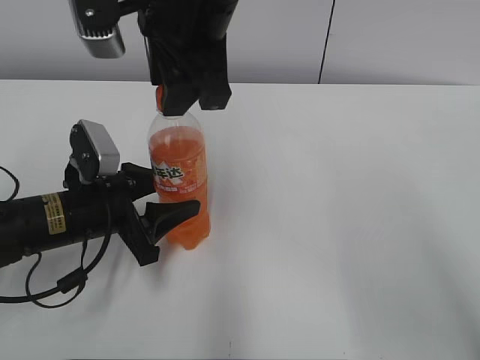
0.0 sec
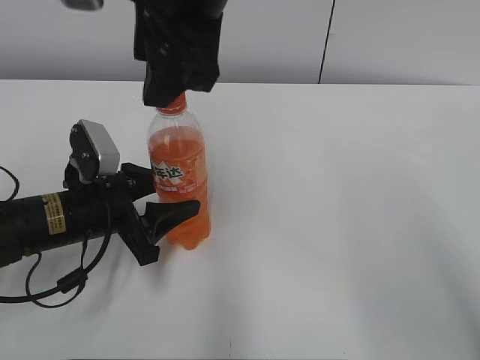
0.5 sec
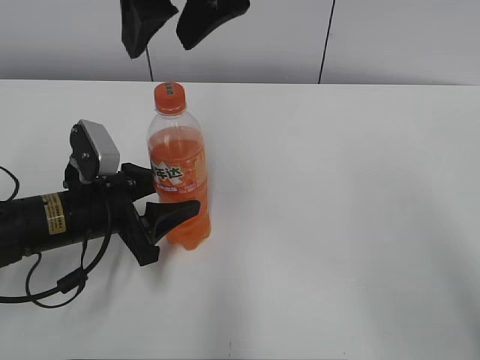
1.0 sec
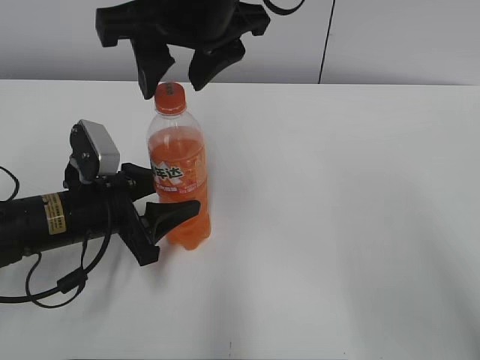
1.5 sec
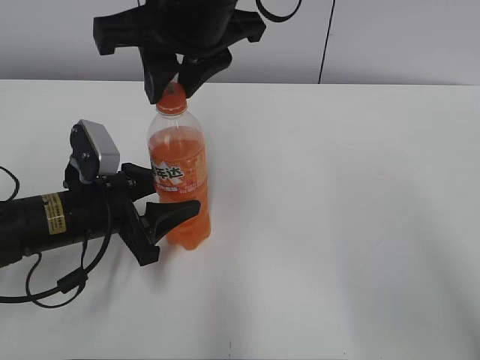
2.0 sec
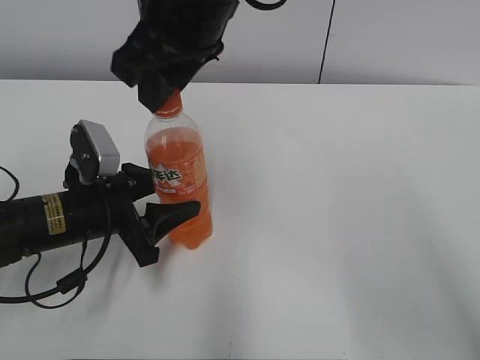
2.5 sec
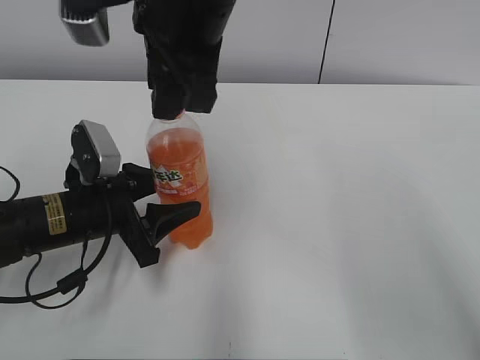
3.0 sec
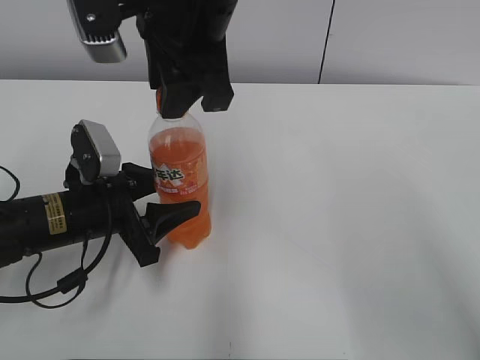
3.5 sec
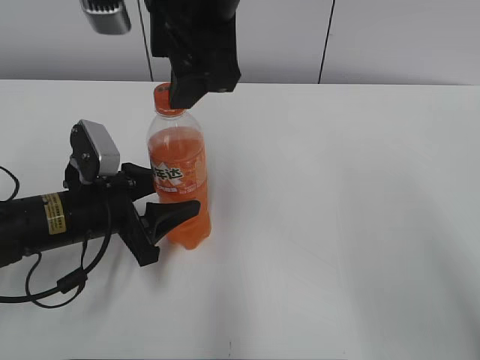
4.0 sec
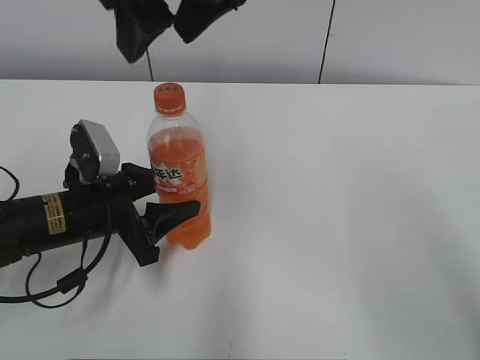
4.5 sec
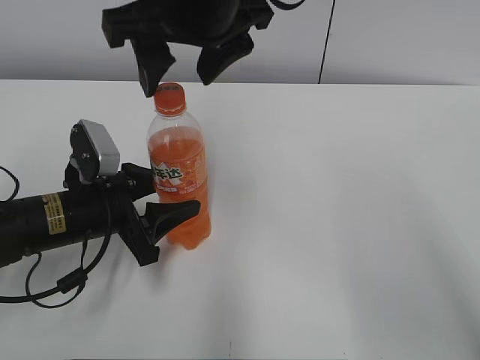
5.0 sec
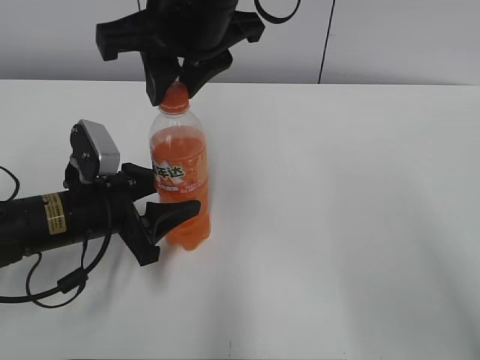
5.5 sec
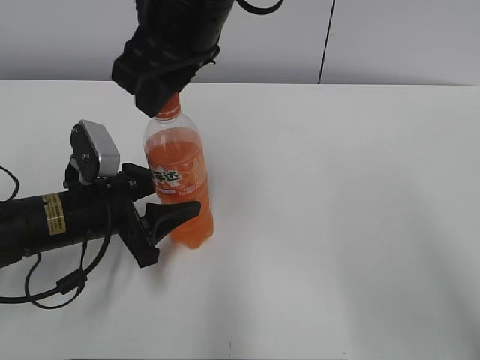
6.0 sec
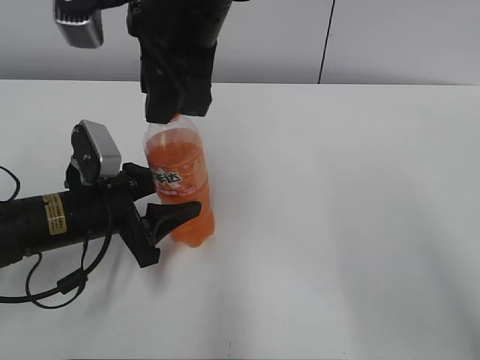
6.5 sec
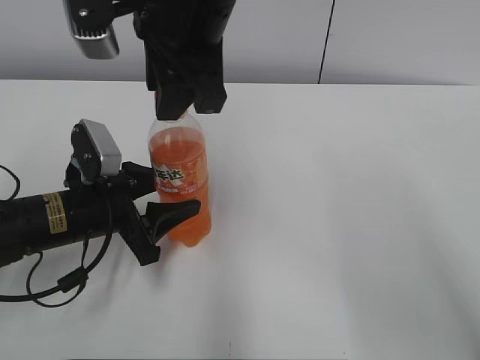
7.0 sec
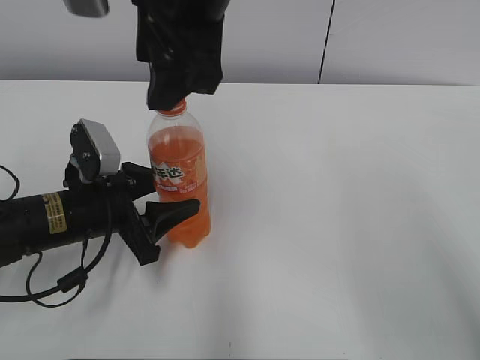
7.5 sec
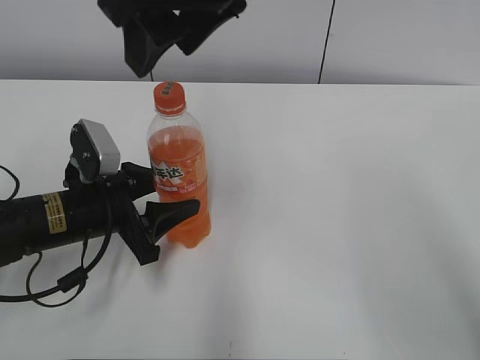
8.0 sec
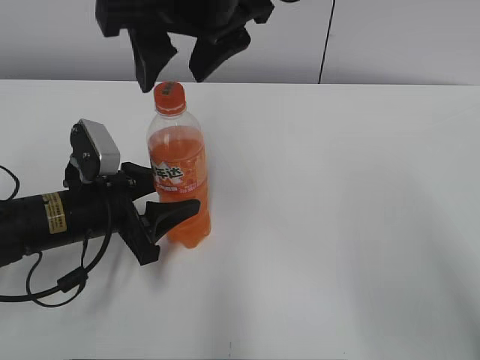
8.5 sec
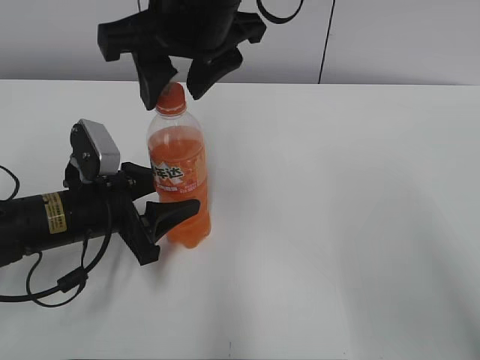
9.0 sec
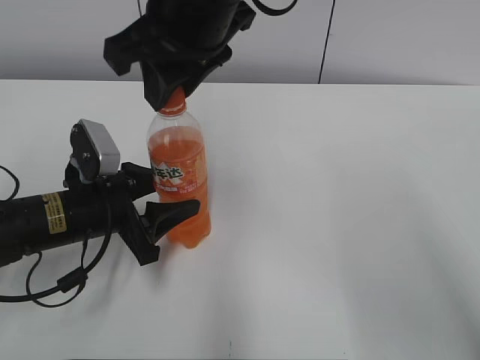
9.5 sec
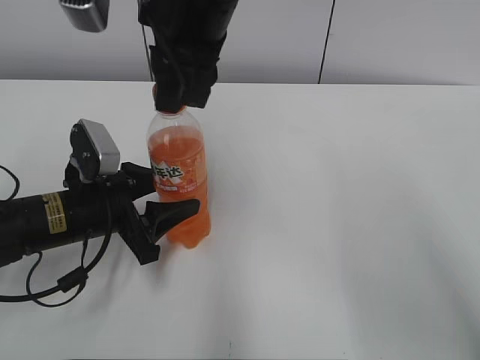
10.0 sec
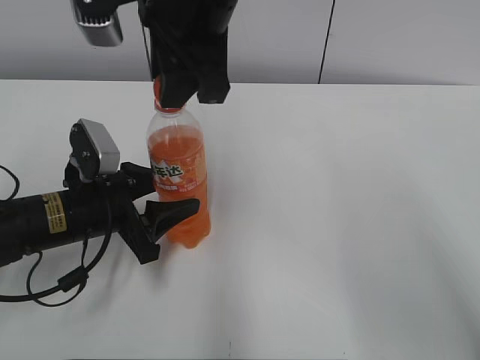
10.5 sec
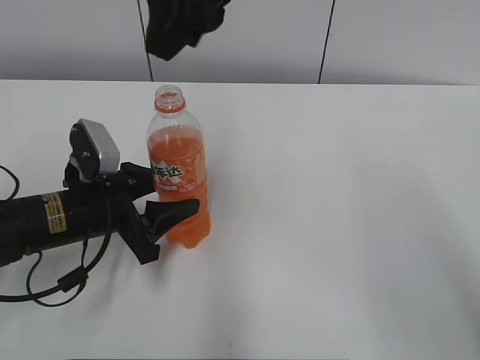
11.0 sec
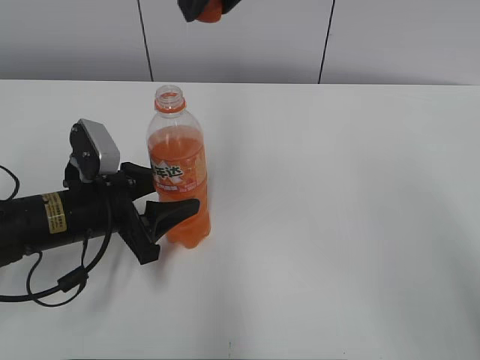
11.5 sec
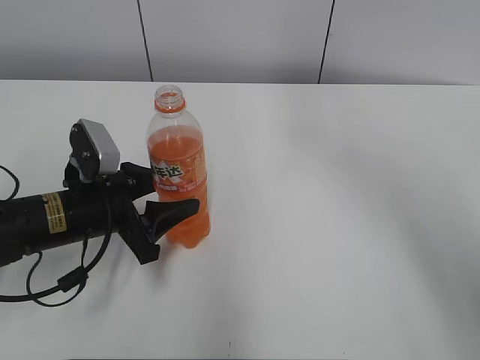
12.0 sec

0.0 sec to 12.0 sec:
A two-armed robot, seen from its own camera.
2.0 sec to 4.0 sec: The right gripper opens.
4.0 sec to 6.0 sec: The right gripper closes its fingers.
6.0 sec to 8.0 sec: The right gripper ends up approximately 5 cm from where it was, and opens.
8.0 sec to 10.0 sec: The right gripper closes its fingers.
10.0 sec to 12.0 sec: The right gripper goes some 15 cm to the right and upward.

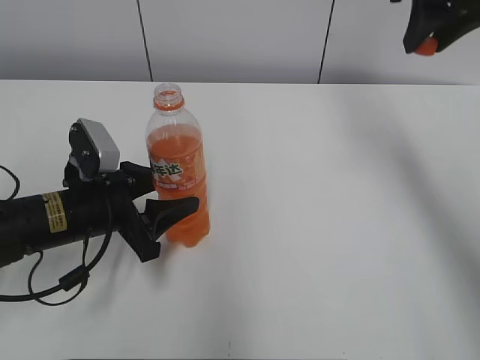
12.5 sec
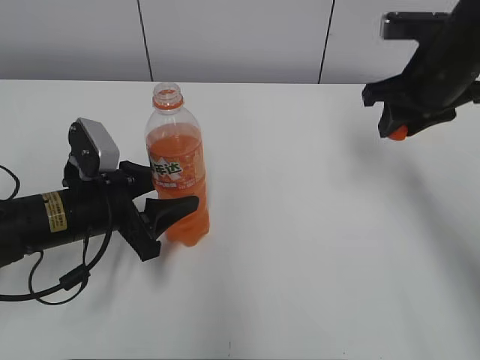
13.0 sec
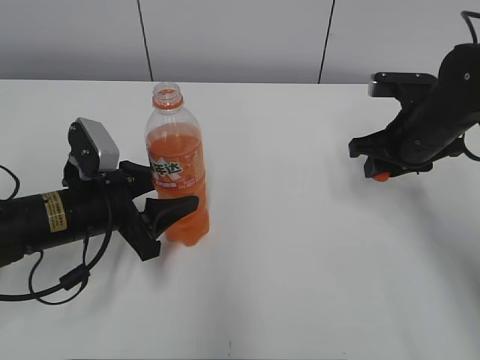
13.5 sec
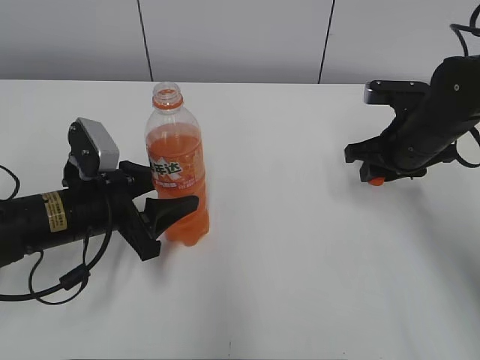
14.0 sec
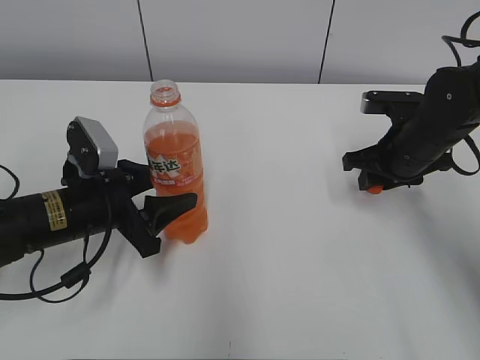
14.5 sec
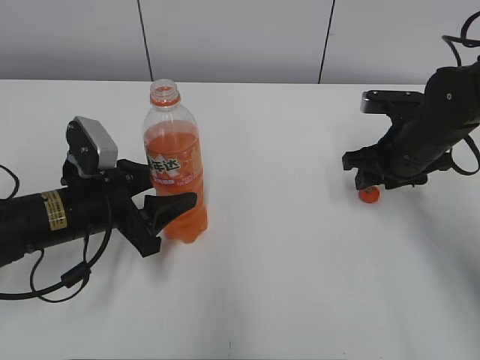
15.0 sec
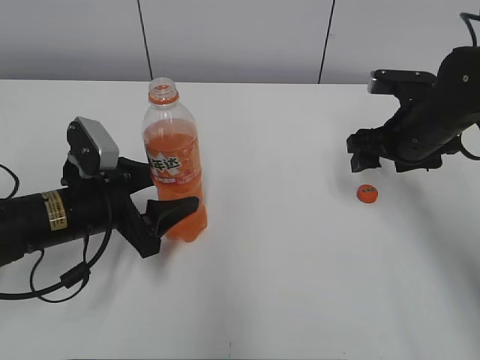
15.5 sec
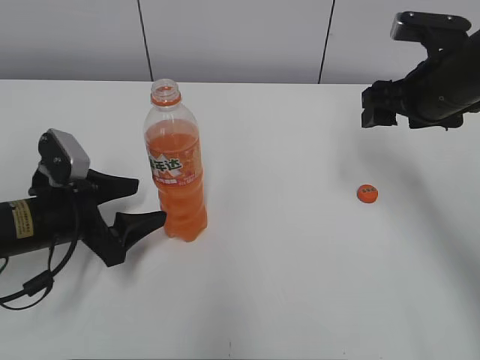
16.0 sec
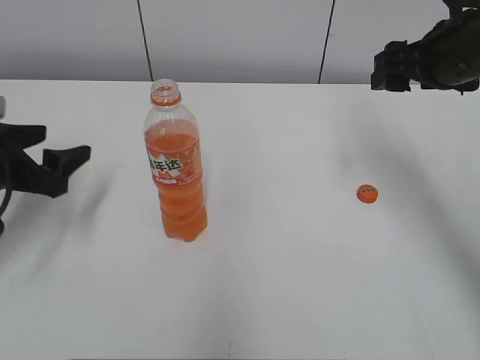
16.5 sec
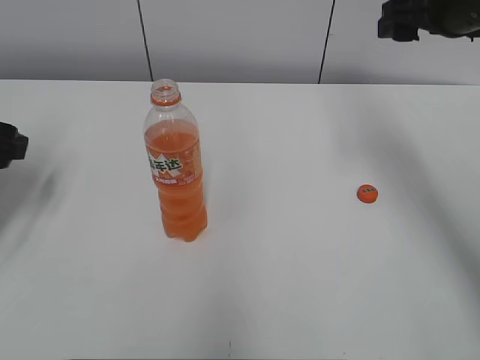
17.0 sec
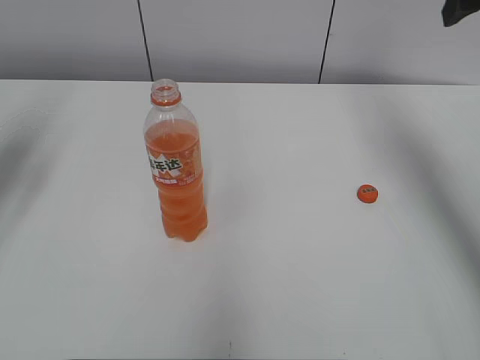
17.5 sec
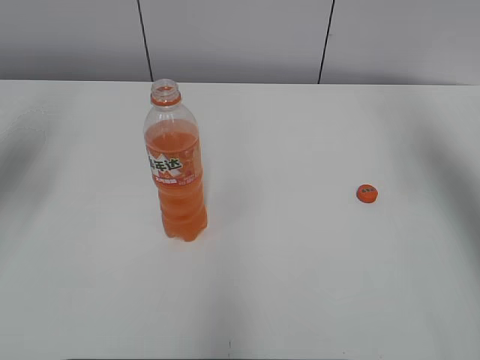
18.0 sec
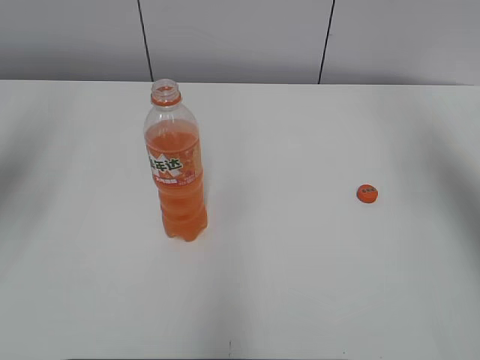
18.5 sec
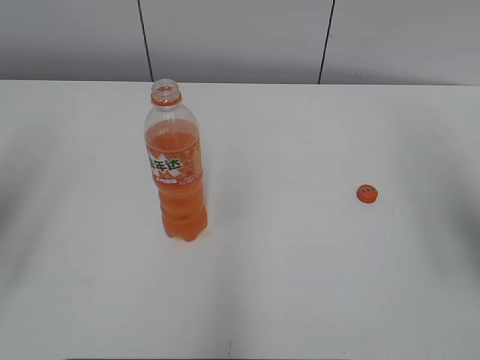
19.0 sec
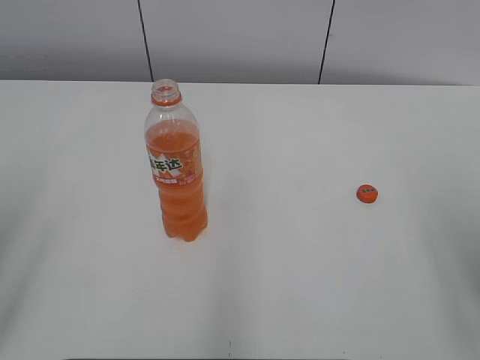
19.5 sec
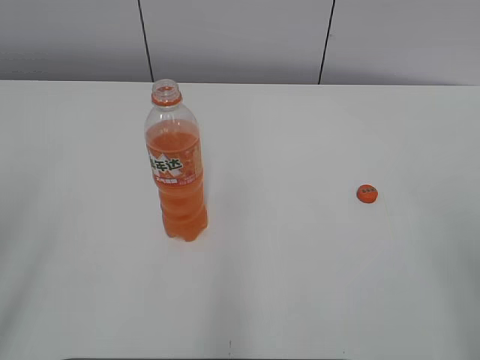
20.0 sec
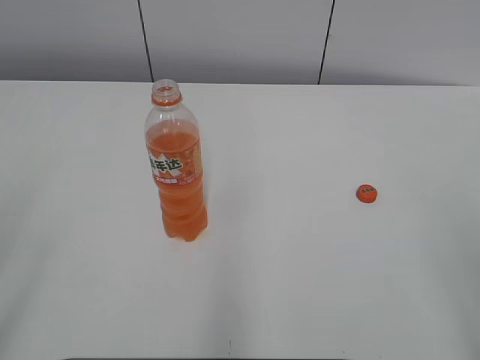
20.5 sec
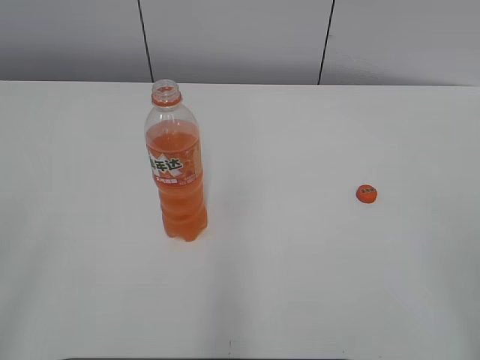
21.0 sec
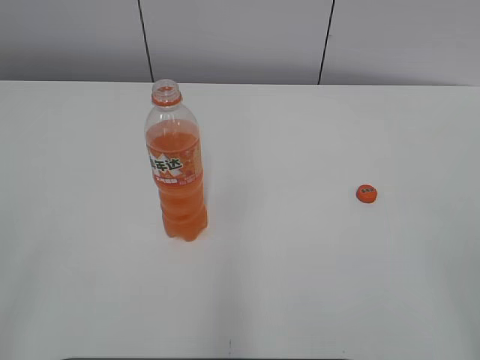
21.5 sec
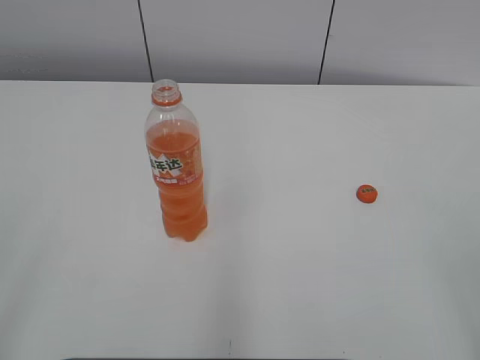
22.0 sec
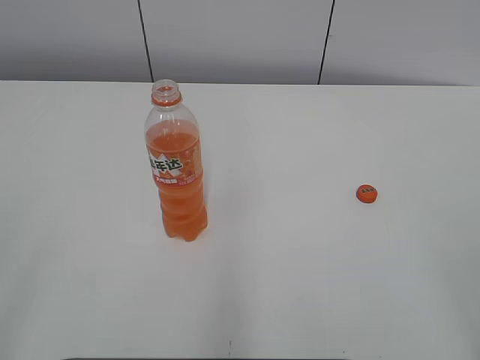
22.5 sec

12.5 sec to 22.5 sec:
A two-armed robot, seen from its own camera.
Step, 12.5 sec to 15.0 sec: Place the bottle cap on the right.
12.5 sec to 14.5 sec: The right gripper travels downward by about 20 cm.
14.5 sec to 16.5 sec: The right gripper shifts about 15 cm upward, and opens up. The left gripper goes about 10 cm to the left, and opens.
16.5 sec to 18.5 sec: The right gripper shifts roughly 15 cm upward and to the right. The left gripper is displaced upward by roughly 20 cm.
18.5 sec to 20.5 sec: The left gripper travels backward by approximately 20 cm. The right gripper moves backward and downward, some 30 cm.
